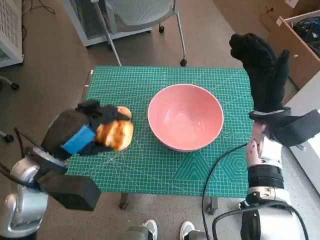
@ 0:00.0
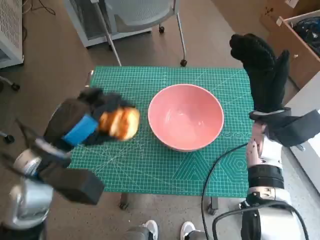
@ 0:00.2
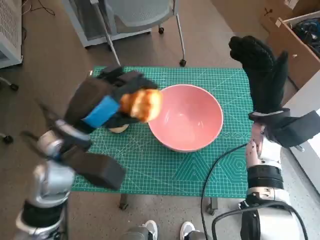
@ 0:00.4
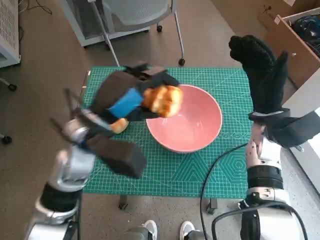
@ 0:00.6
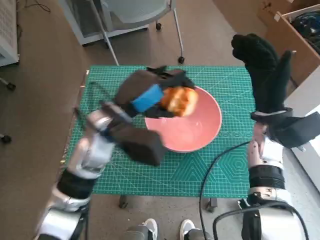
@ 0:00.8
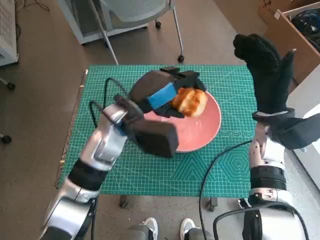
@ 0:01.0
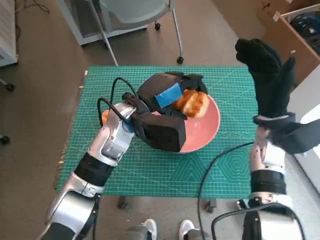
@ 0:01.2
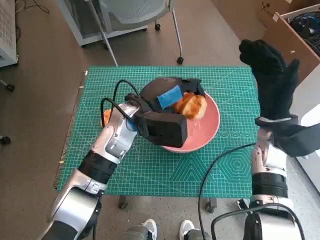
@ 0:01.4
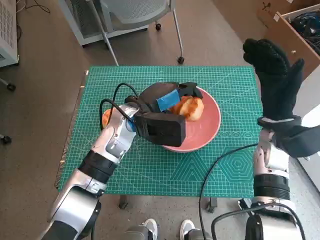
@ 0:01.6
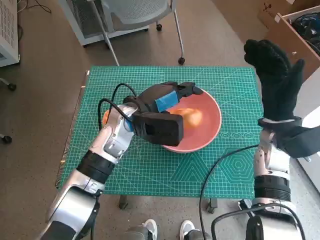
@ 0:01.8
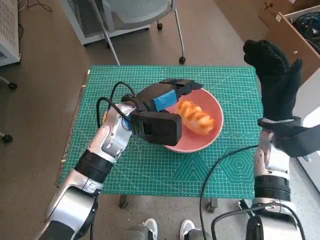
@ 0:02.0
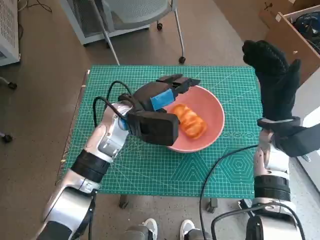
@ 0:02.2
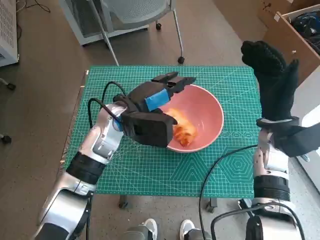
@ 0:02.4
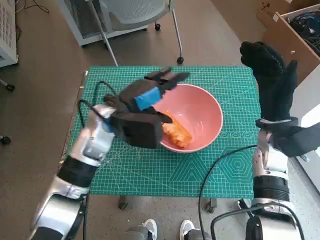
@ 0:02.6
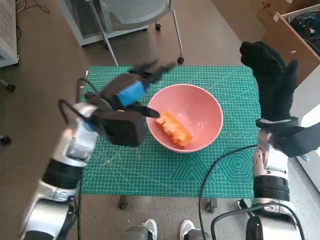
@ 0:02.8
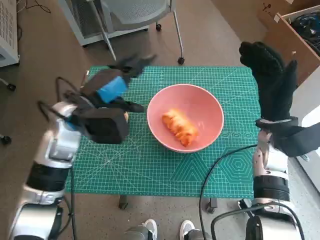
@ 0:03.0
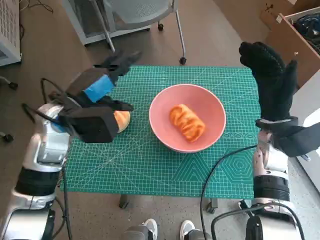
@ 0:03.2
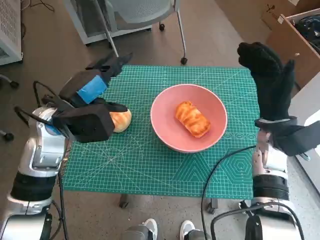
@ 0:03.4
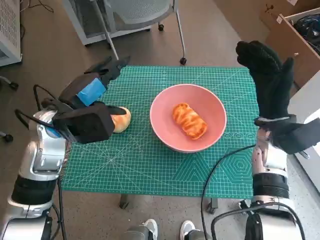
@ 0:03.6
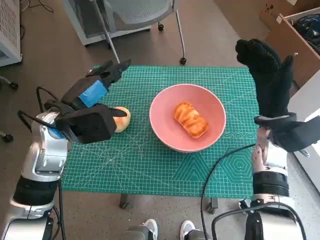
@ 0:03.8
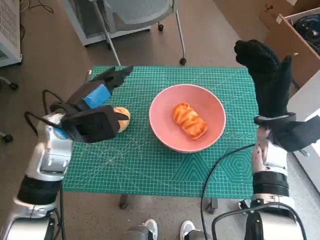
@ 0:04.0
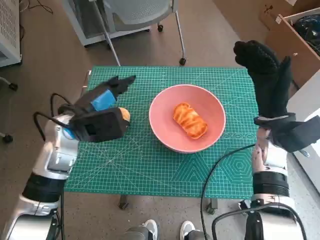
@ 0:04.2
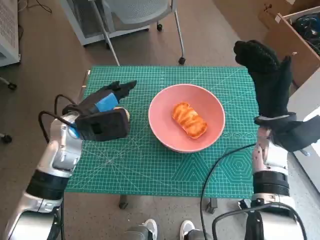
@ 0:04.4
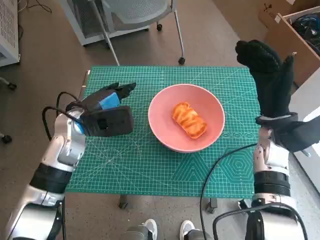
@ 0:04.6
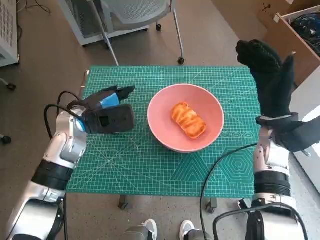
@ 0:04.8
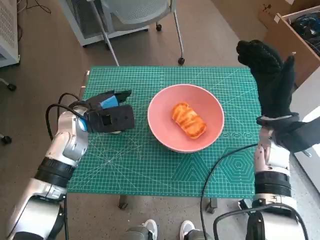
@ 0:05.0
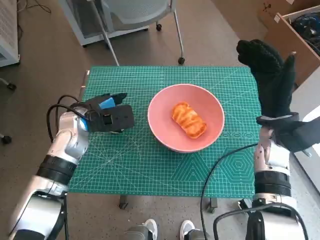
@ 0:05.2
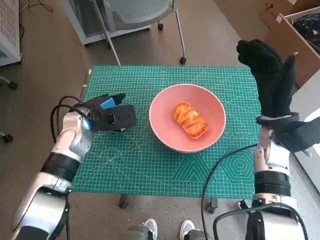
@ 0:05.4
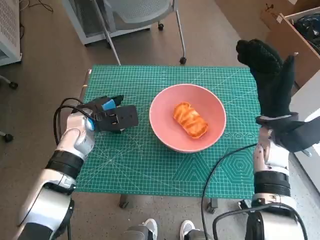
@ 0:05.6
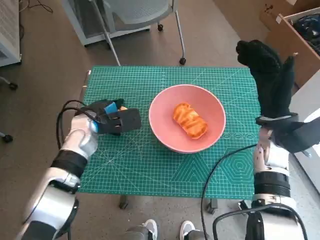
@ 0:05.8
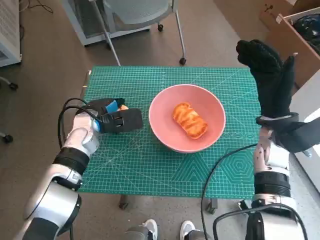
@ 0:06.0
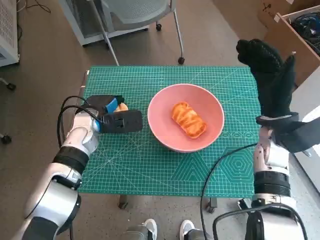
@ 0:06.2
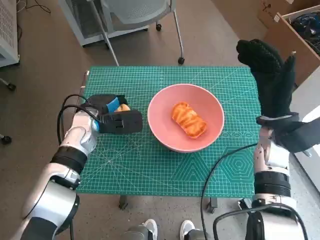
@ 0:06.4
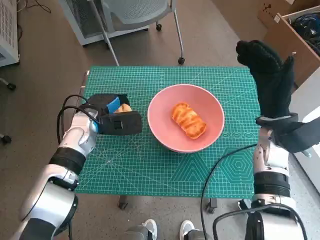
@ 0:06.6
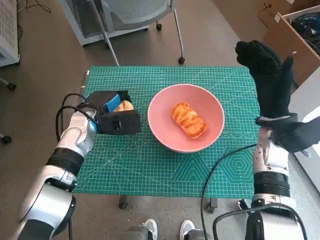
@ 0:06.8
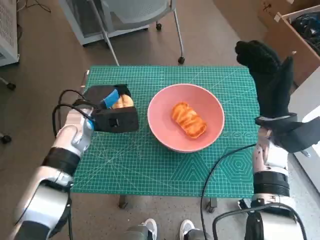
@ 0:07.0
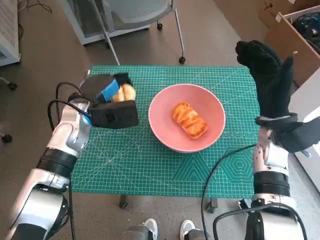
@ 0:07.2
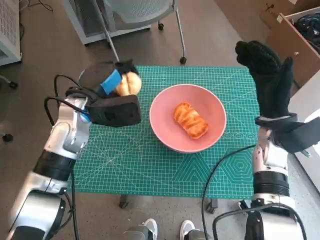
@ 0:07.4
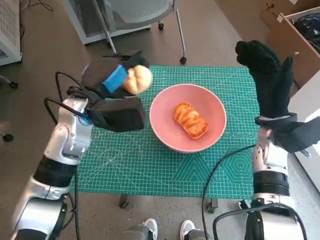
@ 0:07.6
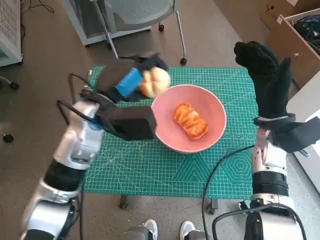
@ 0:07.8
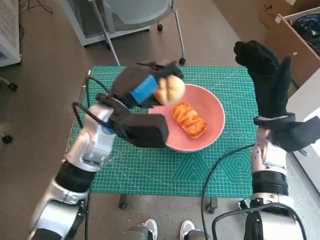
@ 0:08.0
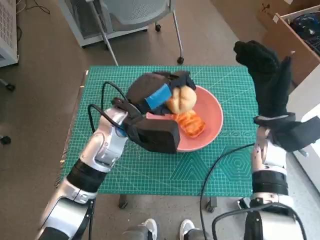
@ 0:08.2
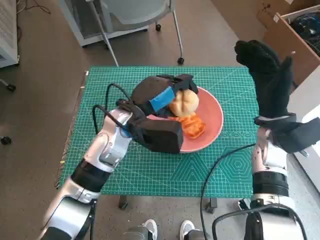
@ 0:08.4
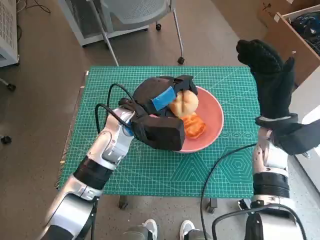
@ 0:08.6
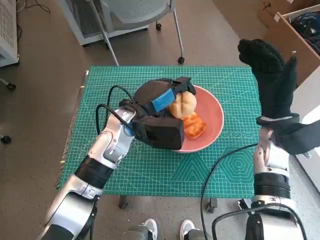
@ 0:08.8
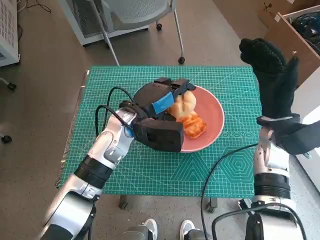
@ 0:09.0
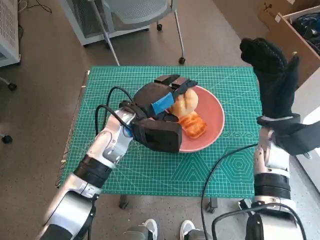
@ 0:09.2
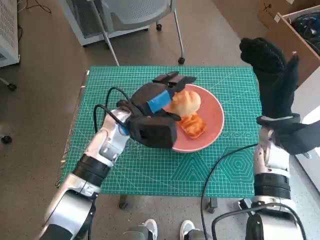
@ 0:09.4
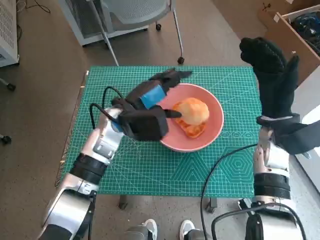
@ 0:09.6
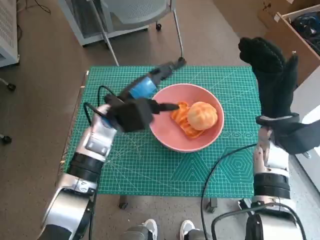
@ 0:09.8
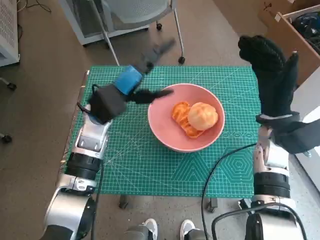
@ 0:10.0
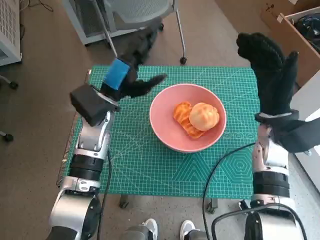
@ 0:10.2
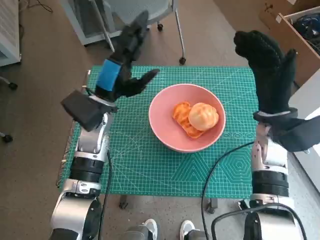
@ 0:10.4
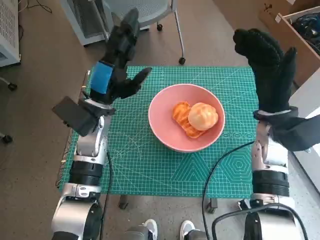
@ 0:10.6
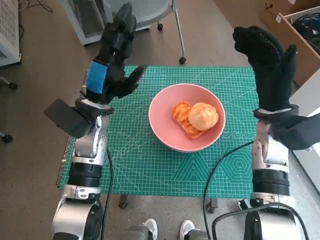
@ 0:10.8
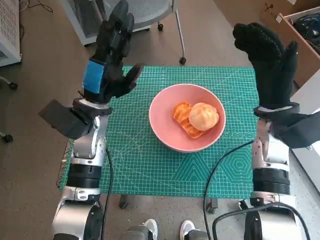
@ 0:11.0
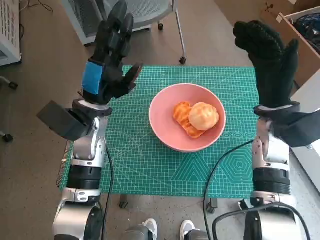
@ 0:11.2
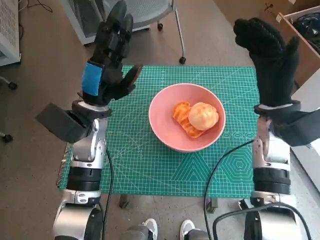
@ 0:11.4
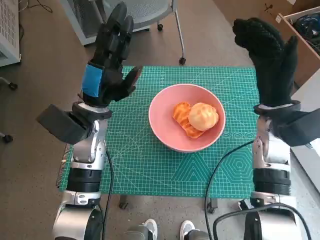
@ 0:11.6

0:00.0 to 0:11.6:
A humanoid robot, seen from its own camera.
Step, 0:00.0 to 0:02.2: Place the long bread in pink bowl with left hand.
Step, 0:02.4 to 0:06.2: Grasp the round bread with left hand.
Step, 0:06.4 to 0:09.6: Place the round bread in pink bowl with left hand.
0:00.0 to 0:01.4: The left hand heads to the right and forward, covering roughly 20 cm.
0:01.4 to 0:02.8: The left hand moves to the left, roughly 5 cm.
0:02.8 to 0:04.4: The left hand shifts by roughly 5 cm.
0:04.4 to 0:05.8: The left hand moves downward, some 5 cm.
0:07.2 to 0:08.8: The left hand travels to the right by approximately 10 cm.
0:08.8 to 0:10.2: The left hand shifts roughly 5 cm to the left.
